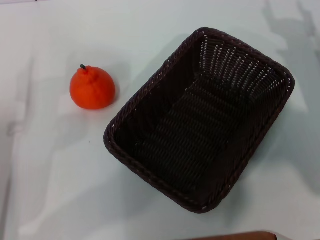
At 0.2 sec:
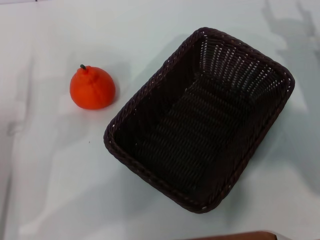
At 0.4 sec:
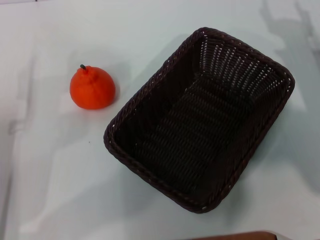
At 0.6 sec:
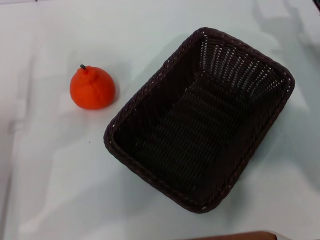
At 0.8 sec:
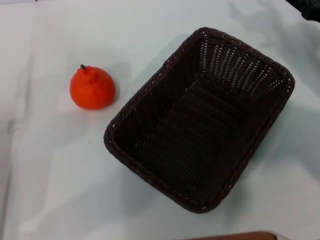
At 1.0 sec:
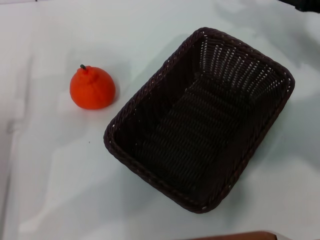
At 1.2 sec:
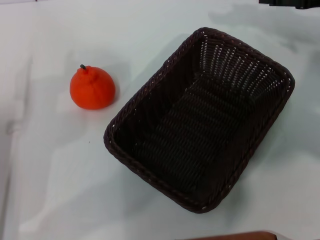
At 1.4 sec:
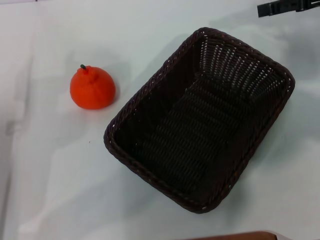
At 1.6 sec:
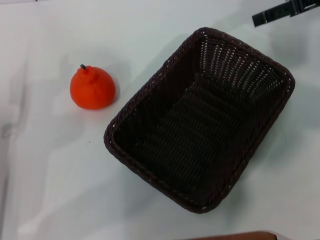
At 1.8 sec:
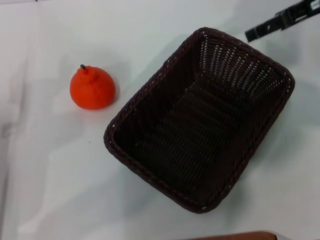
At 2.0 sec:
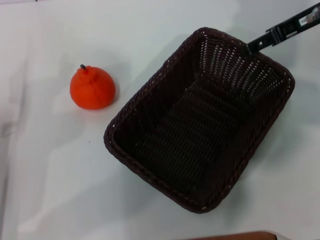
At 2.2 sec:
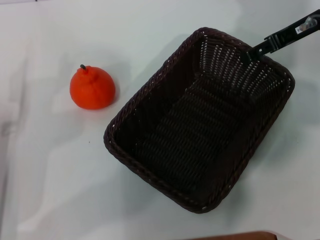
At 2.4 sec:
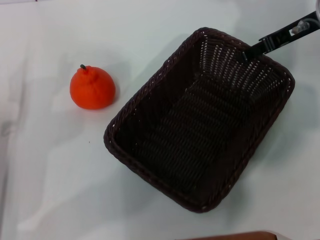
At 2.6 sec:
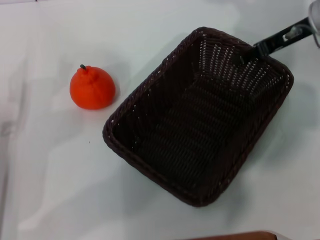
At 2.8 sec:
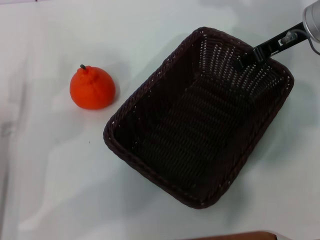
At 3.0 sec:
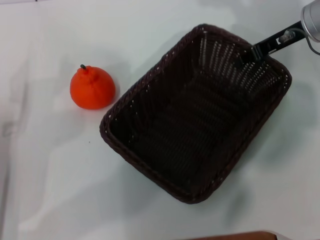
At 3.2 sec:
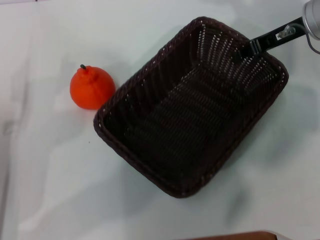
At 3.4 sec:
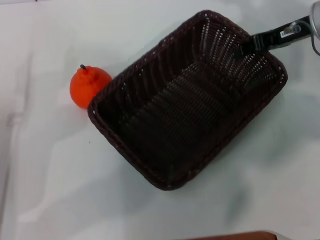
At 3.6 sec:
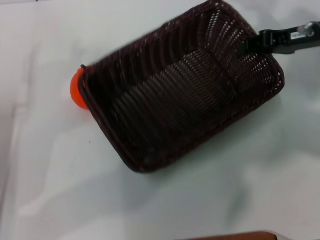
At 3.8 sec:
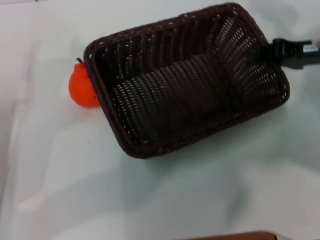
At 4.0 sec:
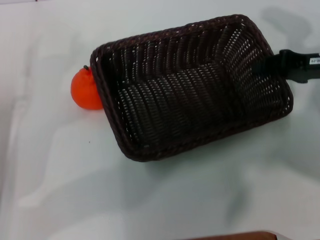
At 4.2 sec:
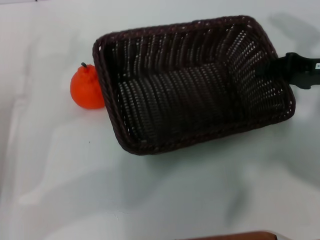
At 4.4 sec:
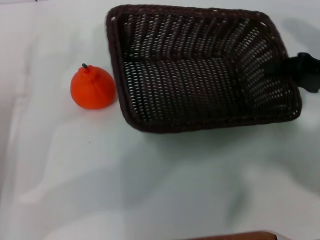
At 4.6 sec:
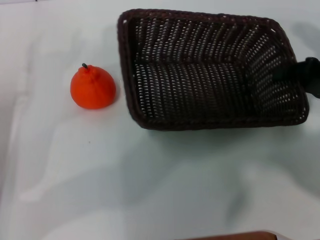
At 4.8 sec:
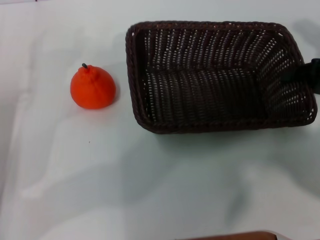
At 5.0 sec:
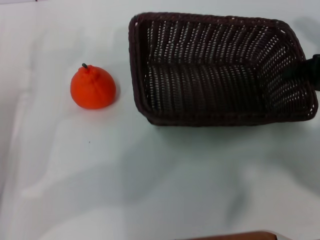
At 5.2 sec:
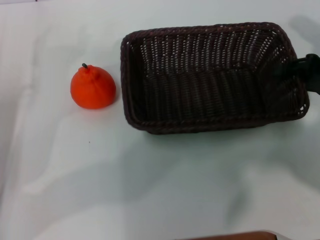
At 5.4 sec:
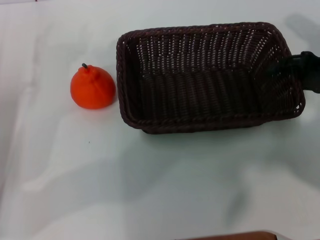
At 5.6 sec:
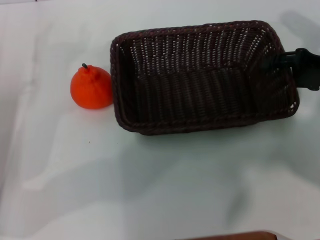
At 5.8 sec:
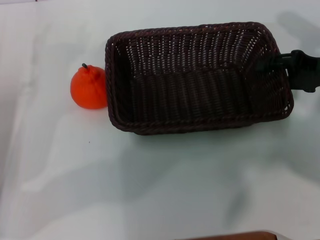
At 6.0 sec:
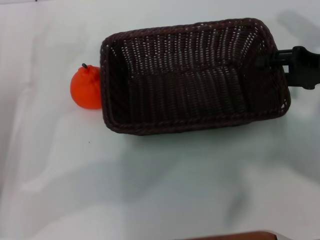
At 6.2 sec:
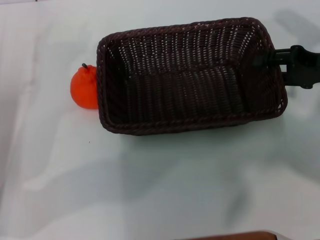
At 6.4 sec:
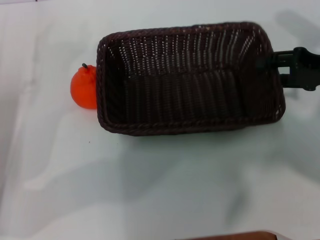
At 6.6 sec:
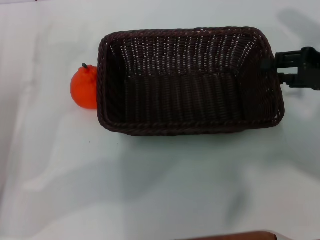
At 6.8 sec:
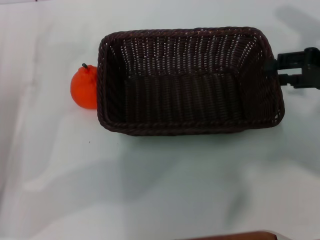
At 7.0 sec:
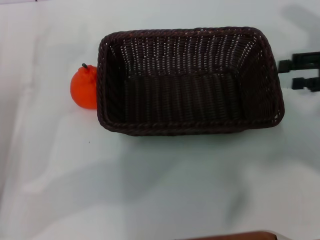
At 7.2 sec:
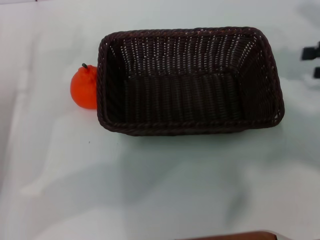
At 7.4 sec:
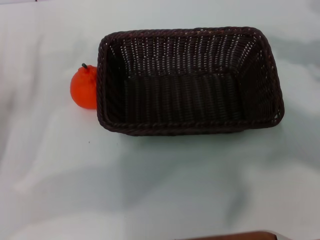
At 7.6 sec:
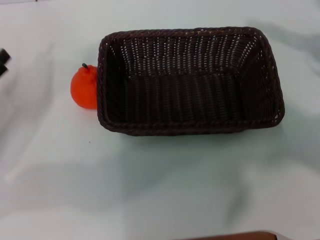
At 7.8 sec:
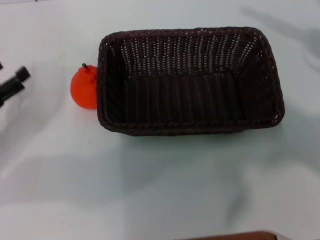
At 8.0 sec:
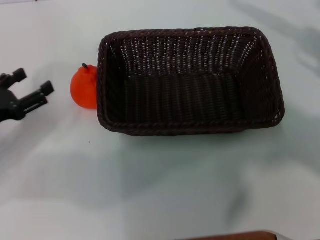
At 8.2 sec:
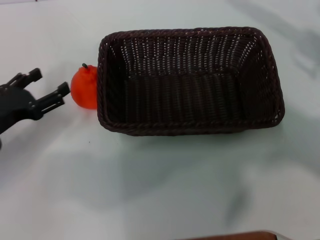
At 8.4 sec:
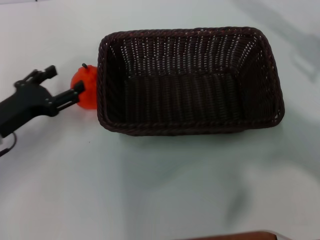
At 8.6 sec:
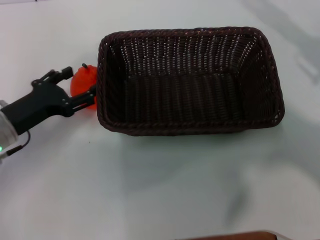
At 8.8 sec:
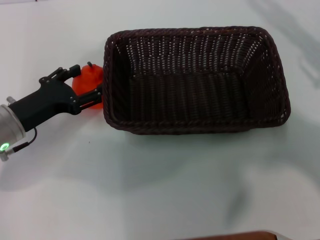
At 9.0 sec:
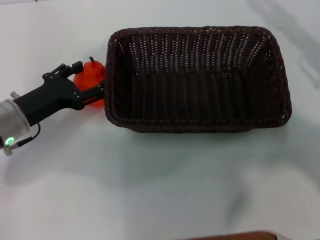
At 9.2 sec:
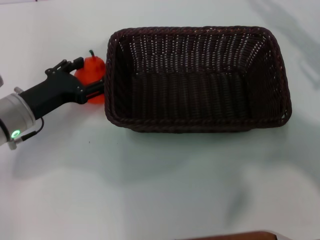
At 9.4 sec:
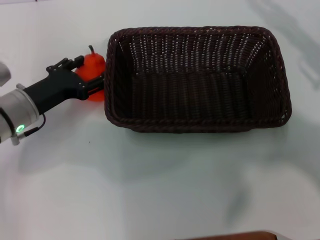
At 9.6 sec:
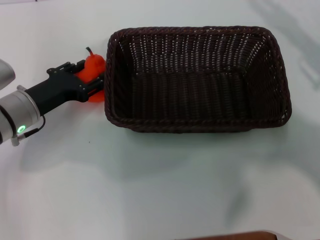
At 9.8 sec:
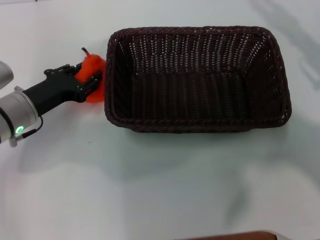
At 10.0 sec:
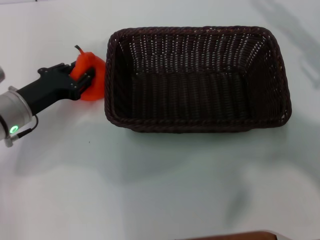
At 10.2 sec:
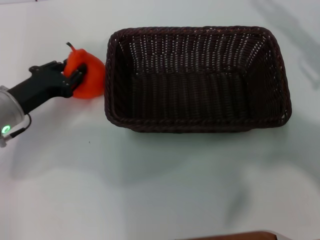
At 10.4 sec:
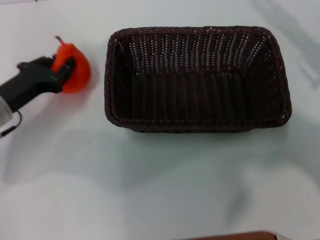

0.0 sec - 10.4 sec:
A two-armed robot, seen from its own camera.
Task of the whole recording: the right gripper pick up the black basket and place it horizontally in the middle of the table, the left gripper pick up the orange and place it into the black basket.
Step, 0.0 sec - 3.4 sec: Pick up the dark basket with the right gripper.
Step, 3.6 sec - 7.0 sec: Place the dark basket in the center of view with the right gripper.
0.0 sec - 1.4 sec: The right gripper goes approximately 20 cm upward and forward.
1.4 sec - 3.0 sec: The right gripper travels to the left and downward by approximately 10 cm, and closes.
3.0 sec - 4.4 sec: The right gripper moves backward and to the right, some 15 cm.
4.4 sec - 6.0 sec: The right gripper opens.
6.0 sec - 7.4 sec: The right gripper shifts roughly 10 cm to the right and upward.
7.4 sec - 9.0 sec: The right gripper moves downward, about 5 cm, while the left gripper heads to the right, covering approximately 10 cm.
9.0 sec - 10.4 sec: The left gripper closes up.

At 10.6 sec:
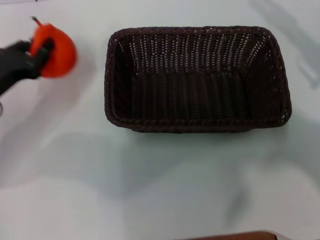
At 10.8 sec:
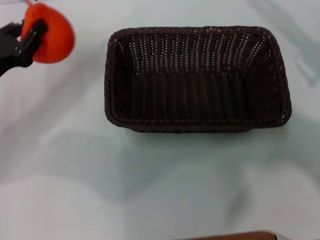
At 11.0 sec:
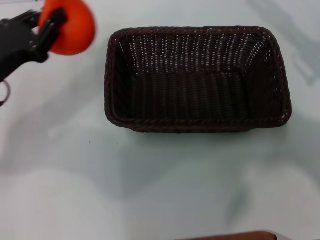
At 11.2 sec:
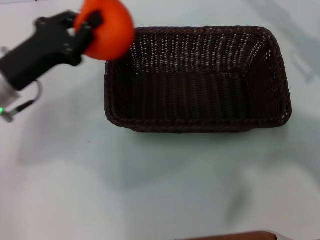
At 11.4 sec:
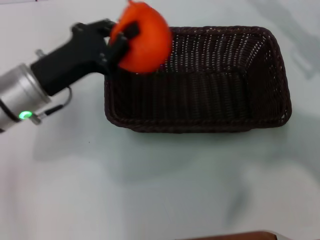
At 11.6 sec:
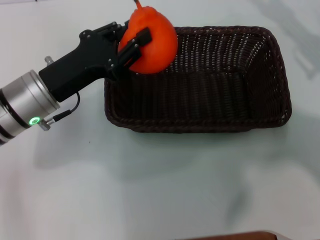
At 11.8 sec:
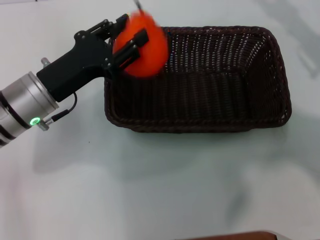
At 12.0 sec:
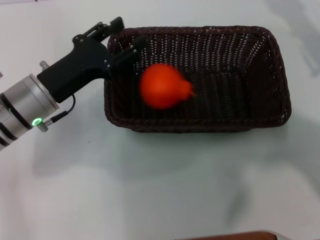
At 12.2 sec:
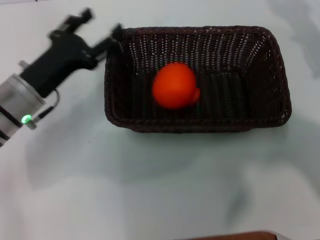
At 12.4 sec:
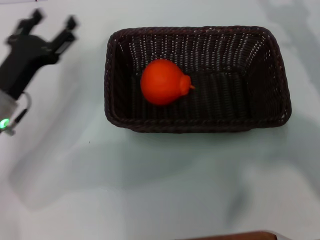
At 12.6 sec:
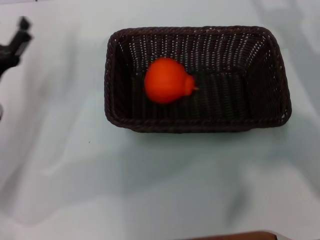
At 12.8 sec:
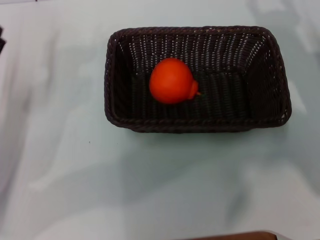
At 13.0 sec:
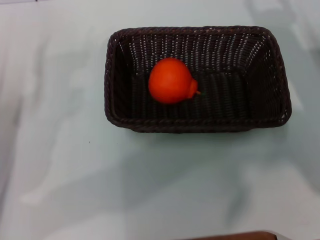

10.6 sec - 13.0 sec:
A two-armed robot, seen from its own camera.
Task of the whole recording: the right gripper pick up the black basket and place it horizontally in the middle of the table, the left gripper pick up the orange and place it into the black basket.
Step, 10.6 sec - 12.0 sec: Place the orange into the dark basket with the left gripper.
10.6 sec - 11.8 sec: The left gripper travels to the right by some 10 cm.
11.8 sec - 13.0 sec: The left gripper goes approximately 10 cm to the left and backward, and opens, while the right gripper travels to the left and downward by approximately 10 cm.
